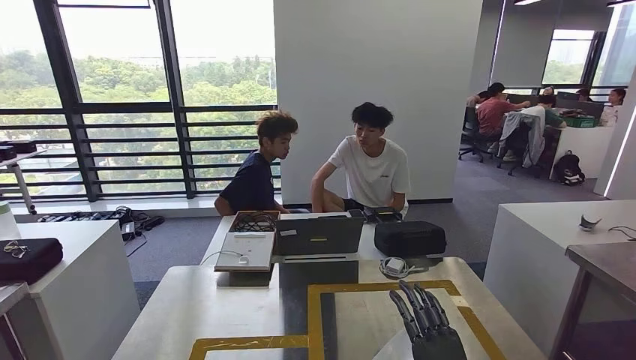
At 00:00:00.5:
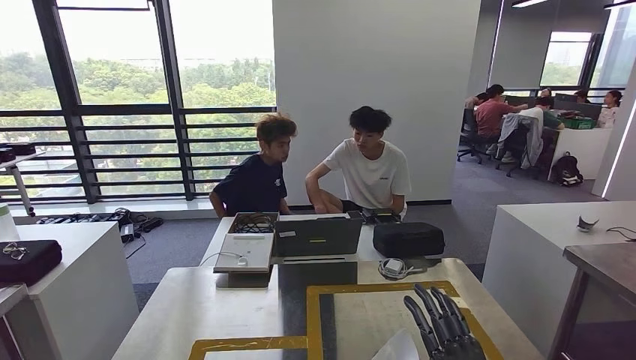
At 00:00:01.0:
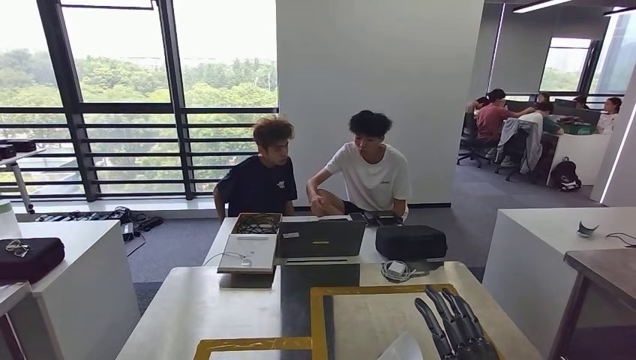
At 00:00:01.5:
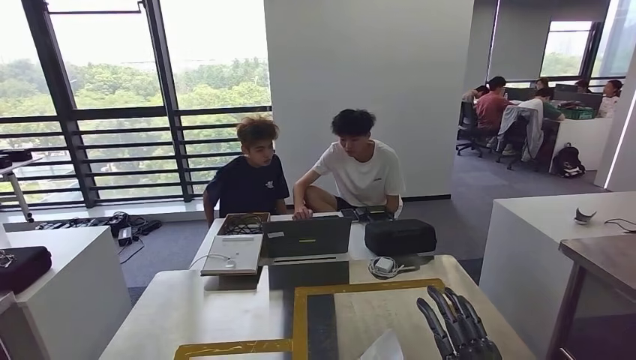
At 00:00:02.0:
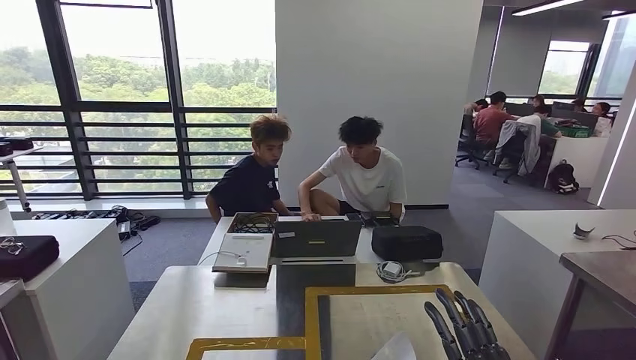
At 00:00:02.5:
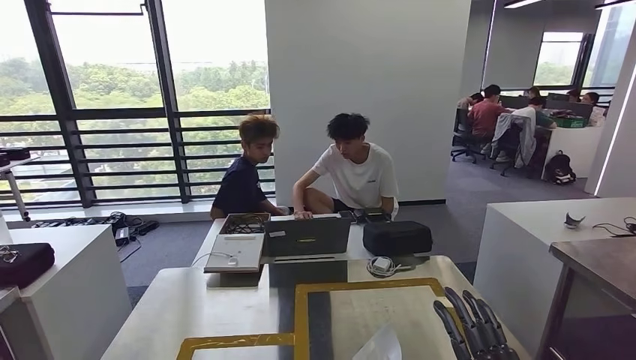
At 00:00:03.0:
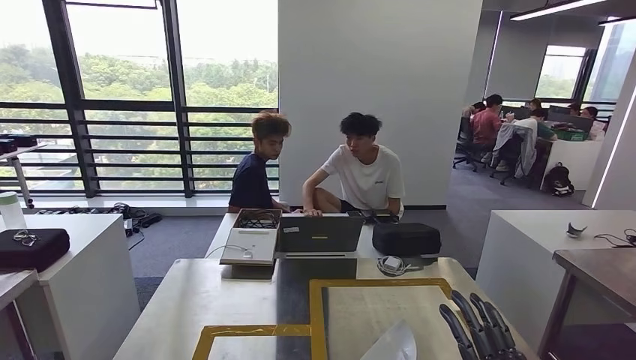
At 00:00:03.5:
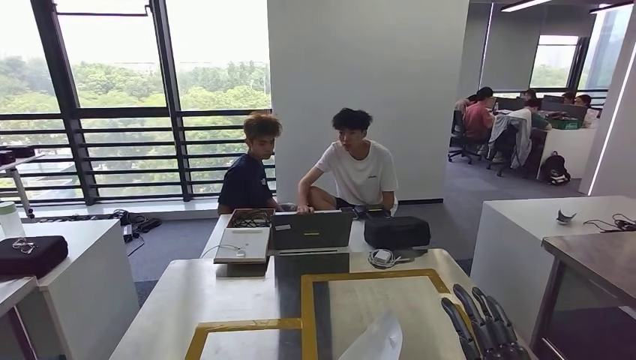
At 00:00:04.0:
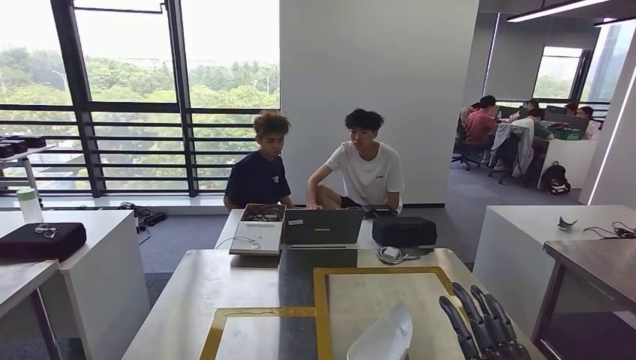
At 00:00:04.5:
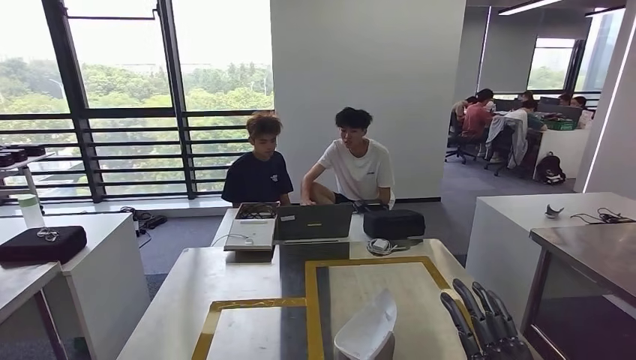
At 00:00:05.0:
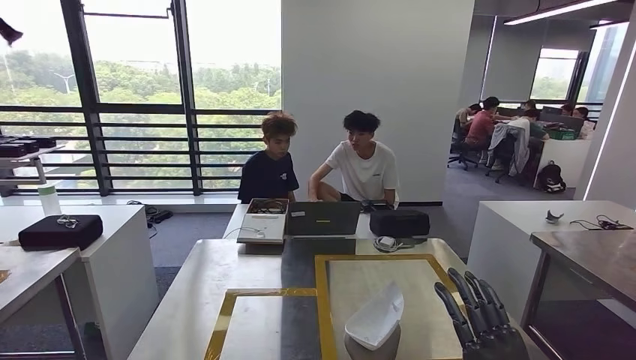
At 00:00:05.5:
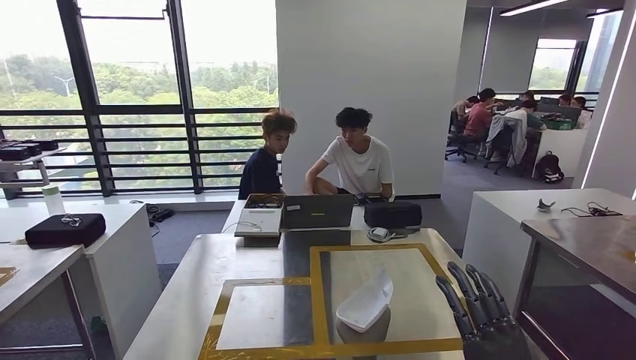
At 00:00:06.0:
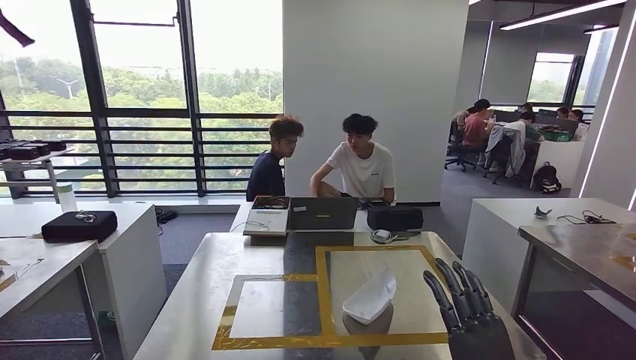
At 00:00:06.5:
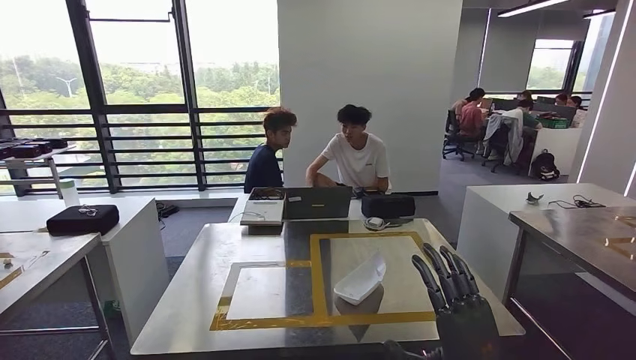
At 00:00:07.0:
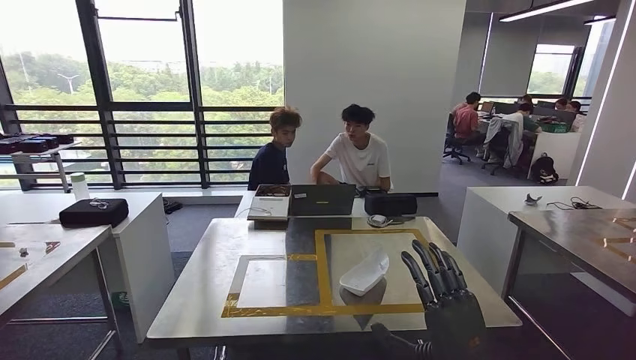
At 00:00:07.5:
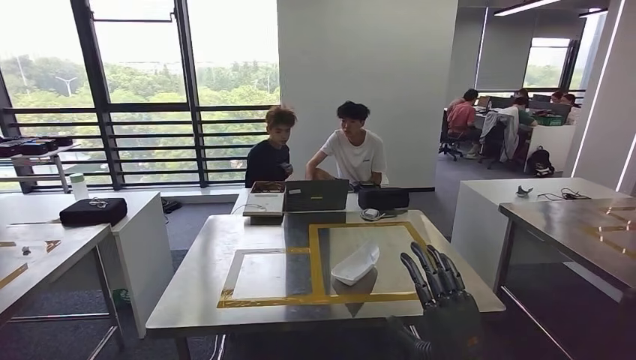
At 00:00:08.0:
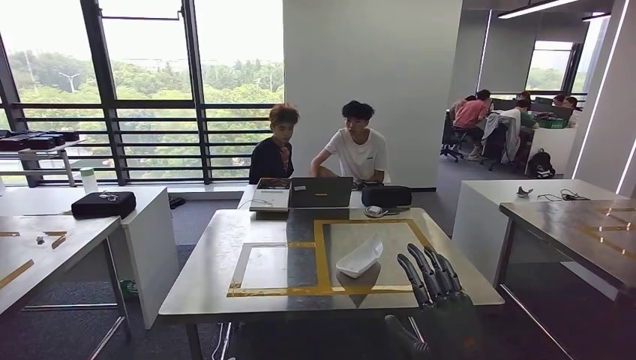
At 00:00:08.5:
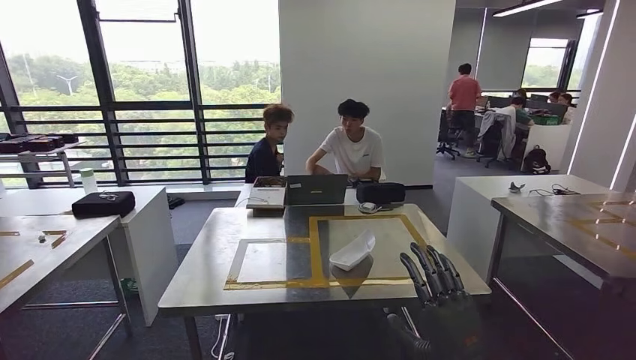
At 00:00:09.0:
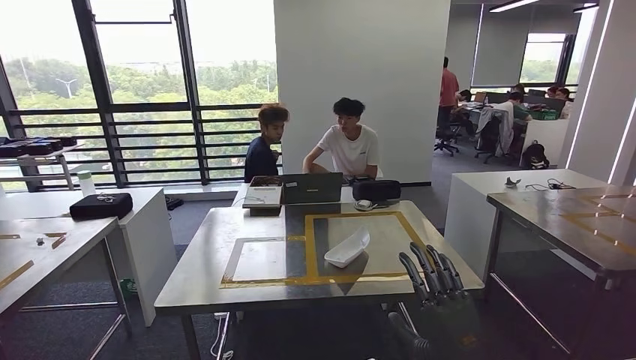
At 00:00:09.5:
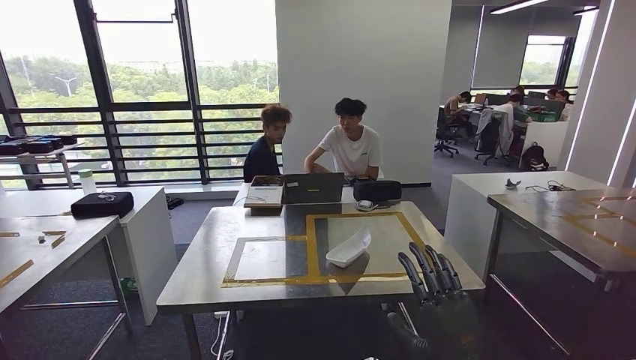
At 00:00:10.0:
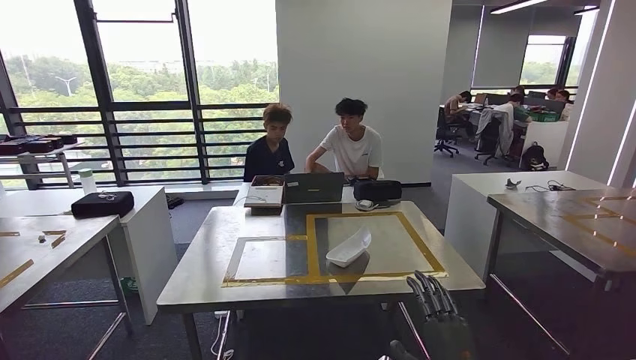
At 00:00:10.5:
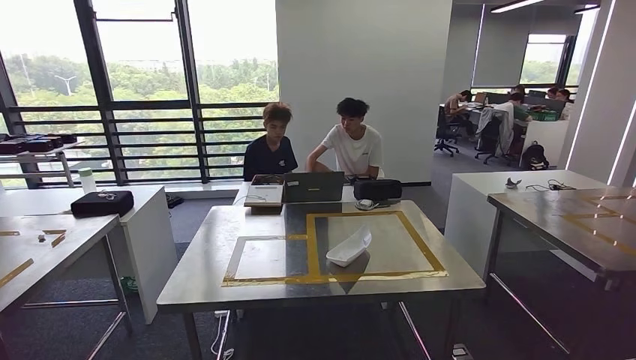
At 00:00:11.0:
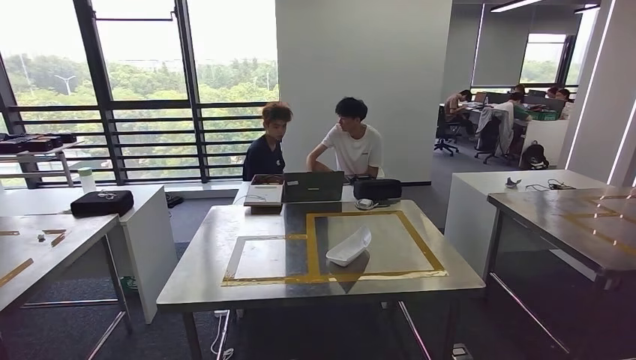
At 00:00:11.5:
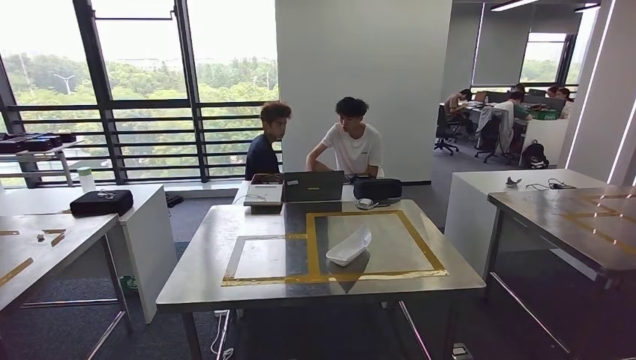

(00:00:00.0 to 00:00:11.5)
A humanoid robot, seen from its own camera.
Step, 00:00:00.0 - 00:00:11.5: Return to the initial position at the workbench.
00:00:09.5 - 00:00:11.5: The right hand moves downward and backward, approximately 50 cm, while the left hand heads backward, covering approximately 10 cm.
